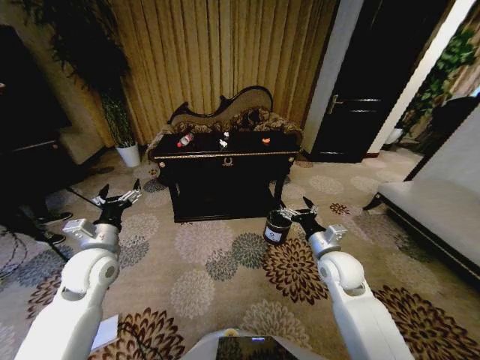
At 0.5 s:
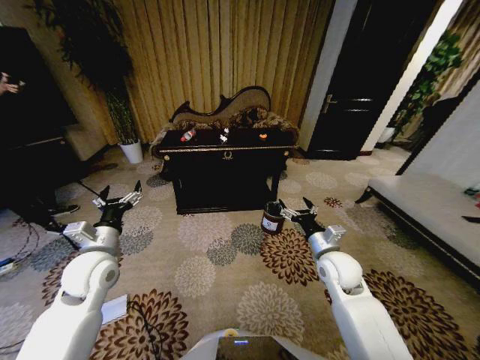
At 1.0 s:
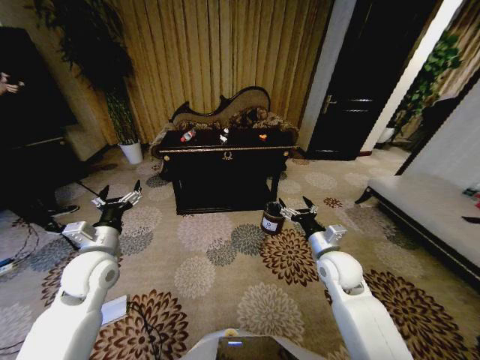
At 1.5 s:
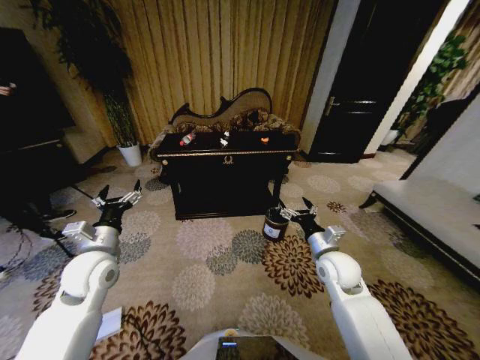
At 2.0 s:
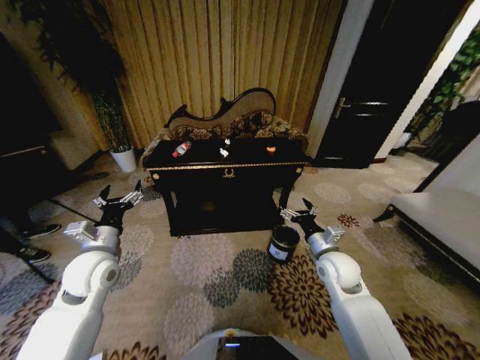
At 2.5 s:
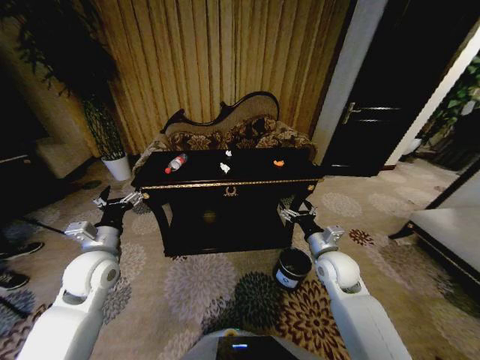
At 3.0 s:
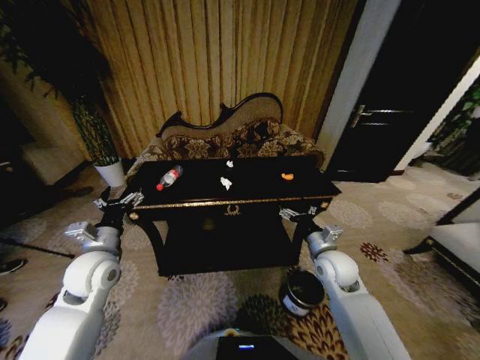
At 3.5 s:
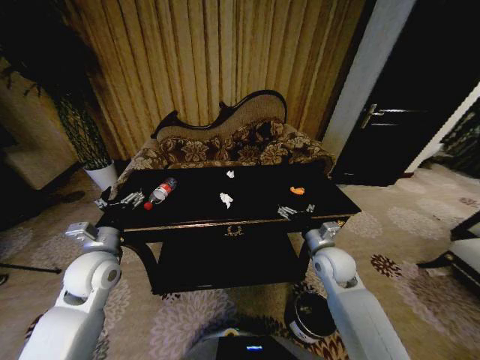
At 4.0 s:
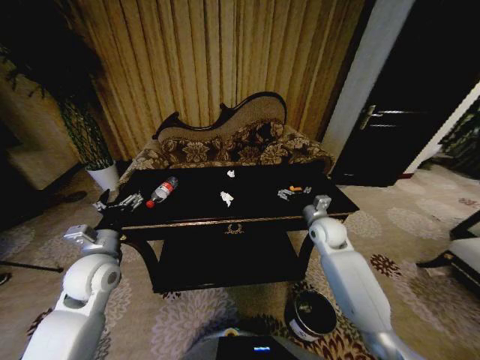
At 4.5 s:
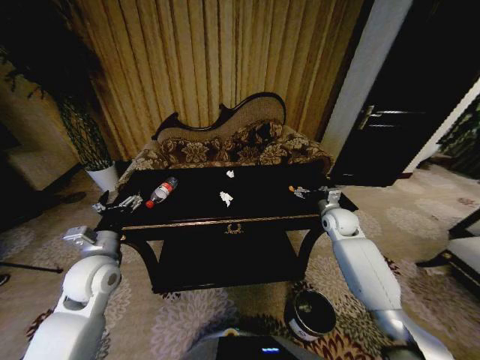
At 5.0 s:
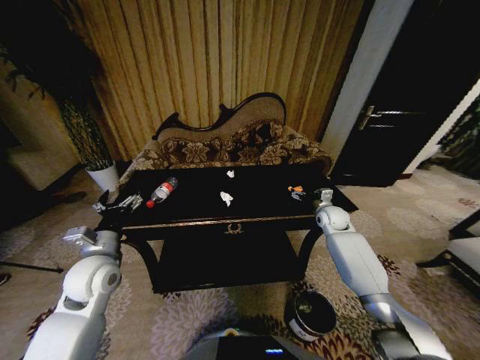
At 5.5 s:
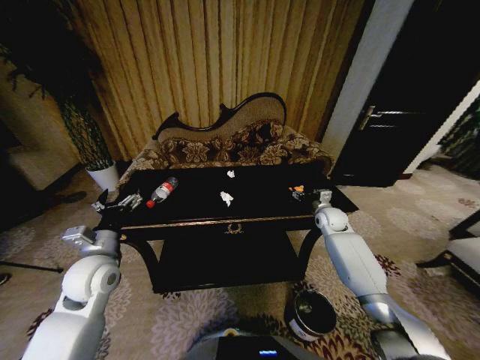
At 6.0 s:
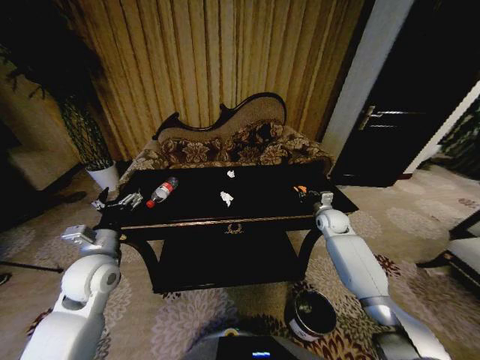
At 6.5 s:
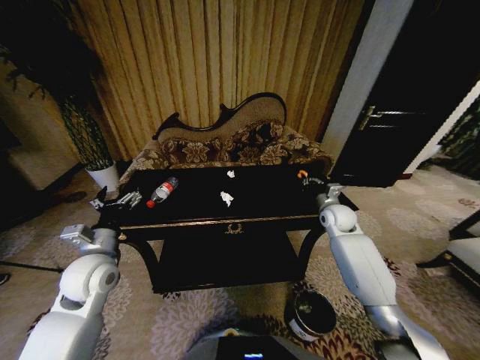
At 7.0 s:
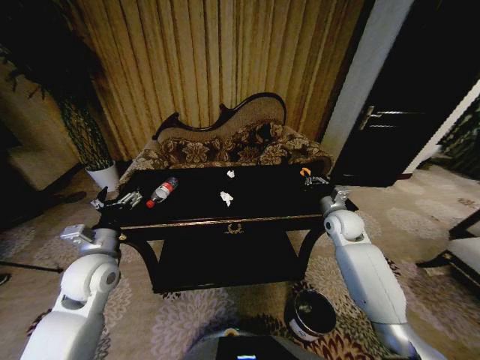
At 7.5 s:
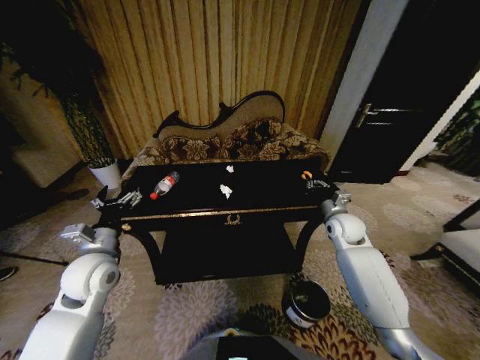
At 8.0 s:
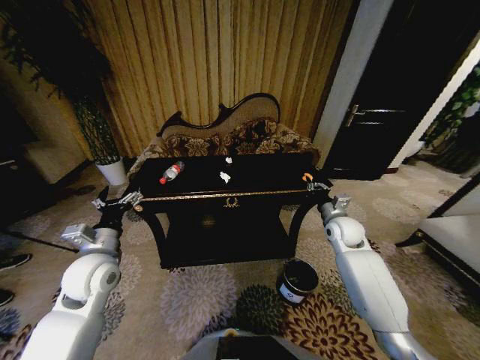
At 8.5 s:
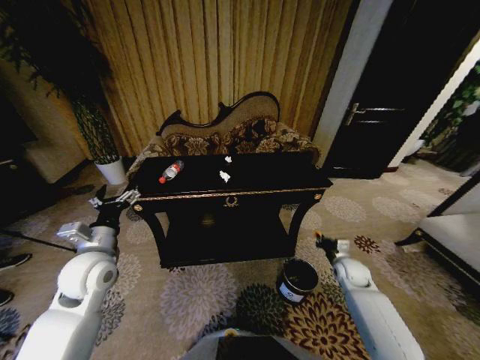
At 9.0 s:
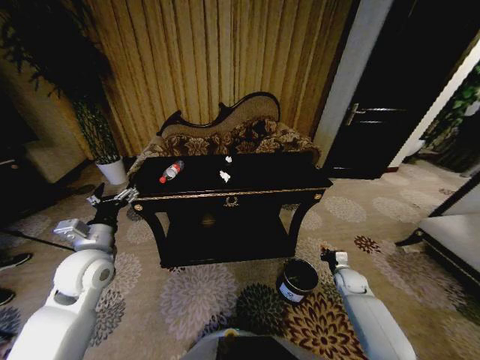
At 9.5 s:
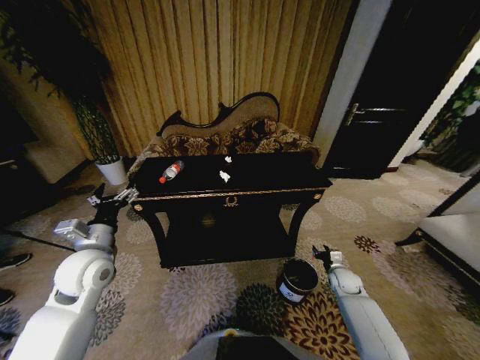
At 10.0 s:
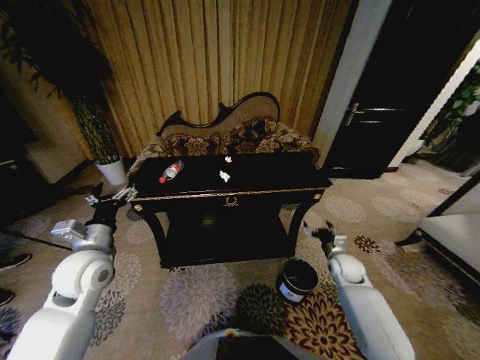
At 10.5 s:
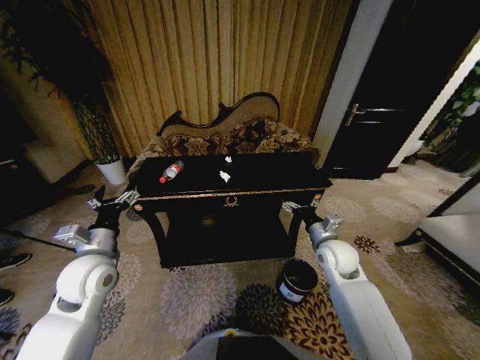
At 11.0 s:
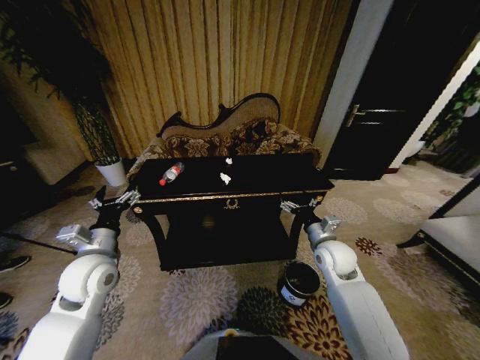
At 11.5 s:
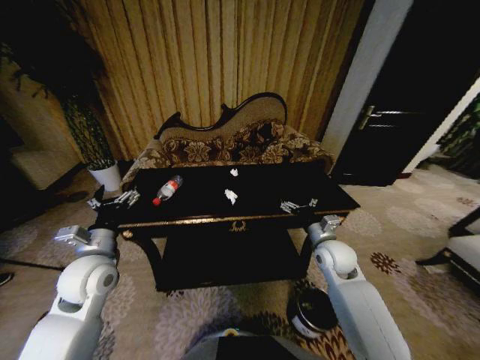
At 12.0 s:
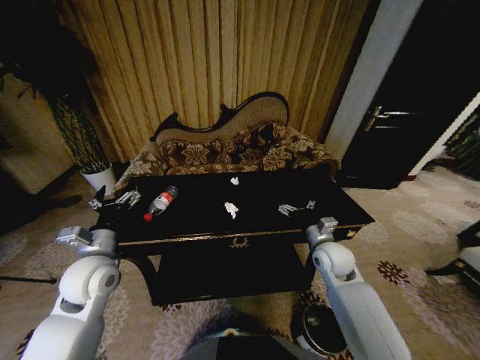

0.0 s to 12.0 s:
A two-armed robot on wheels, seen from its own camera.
Task of the whole recording: Move to the front of the table and place the trash on the table into the trash bin.
2.0 to 4.0 s: The right gripper heads forward, covering roughly 10 cm.
4.0 to 6.0 s: The right gripper shifts approximately 10 cm to the right and forward, and closes.
6.0 to 8.0 s: The right gripper is displaced backward by some 5 cm.
8.0 to 10.0 s: The right gripper is displaced downward and backward by roughly 15 cm, and opens.
10.0 to 12.0 s: The right gripper is displaced upward and to the left by some 15 cm.

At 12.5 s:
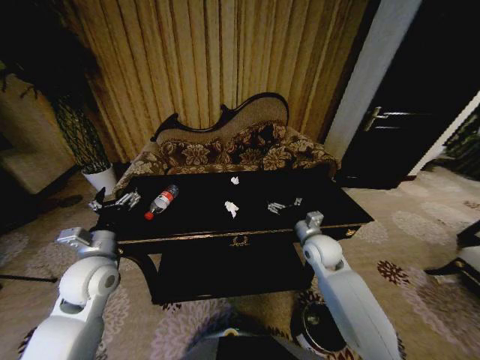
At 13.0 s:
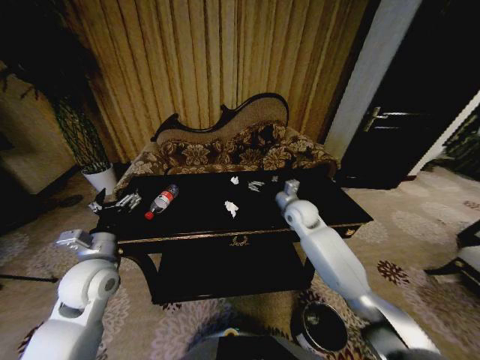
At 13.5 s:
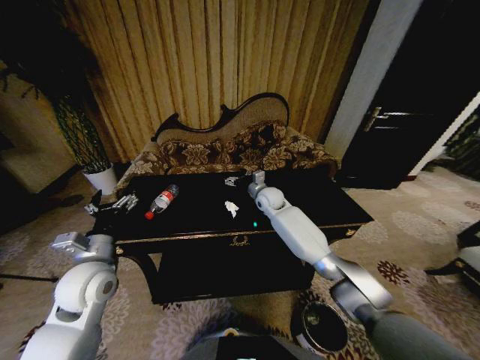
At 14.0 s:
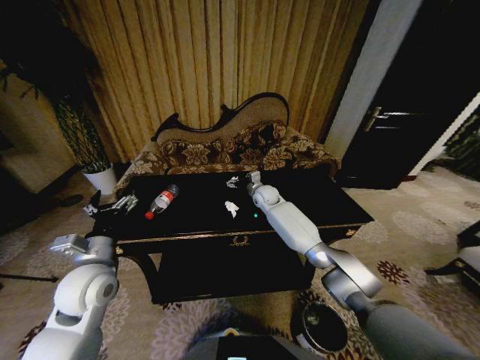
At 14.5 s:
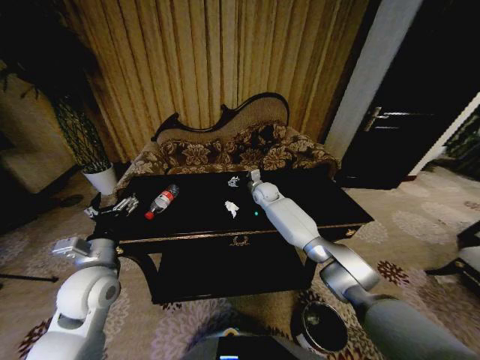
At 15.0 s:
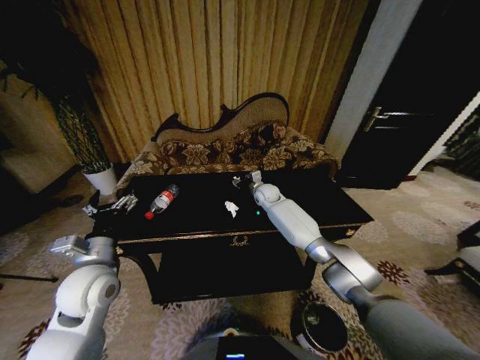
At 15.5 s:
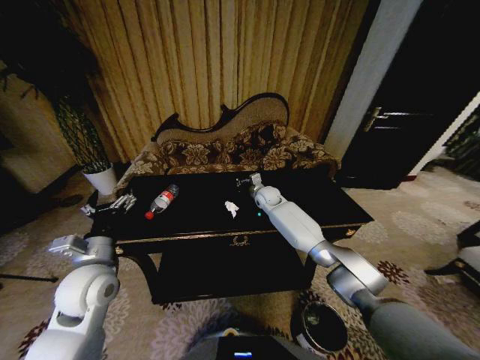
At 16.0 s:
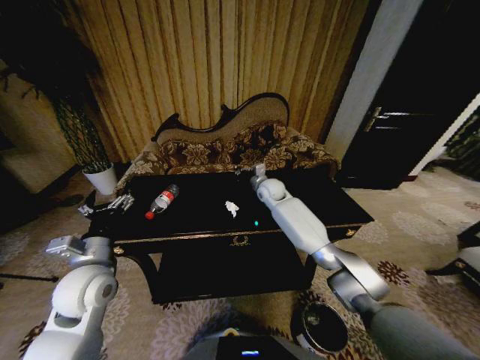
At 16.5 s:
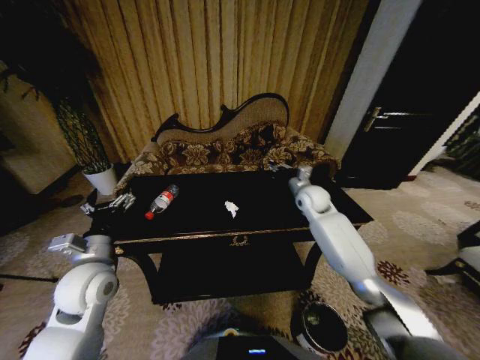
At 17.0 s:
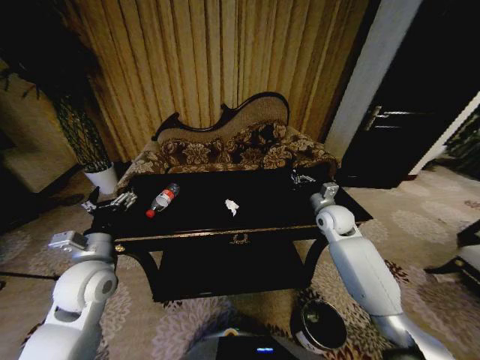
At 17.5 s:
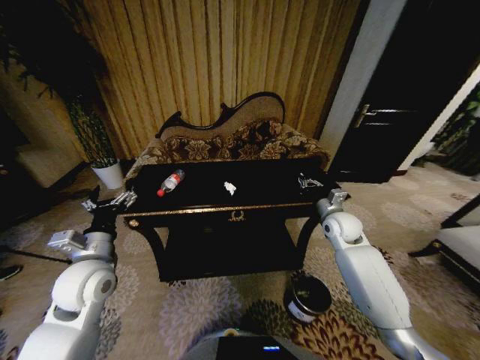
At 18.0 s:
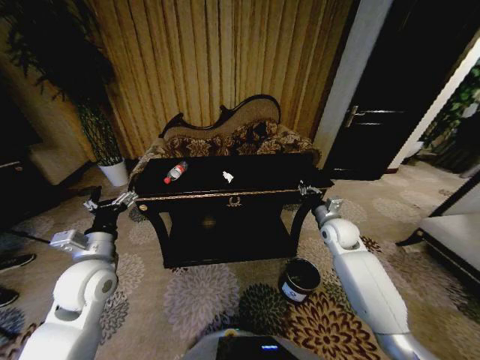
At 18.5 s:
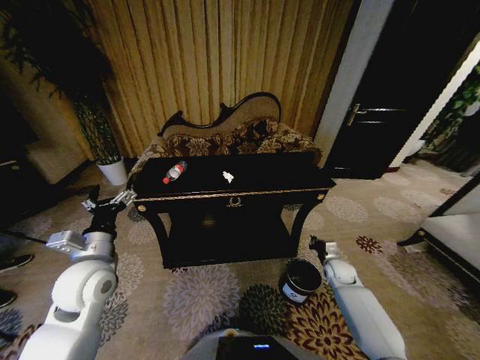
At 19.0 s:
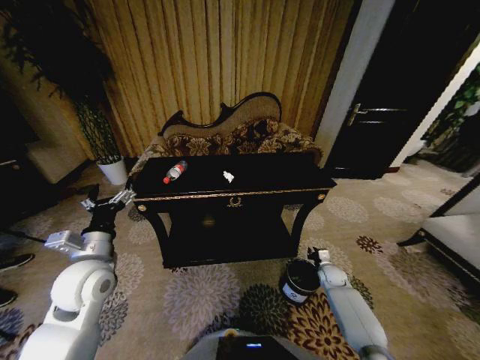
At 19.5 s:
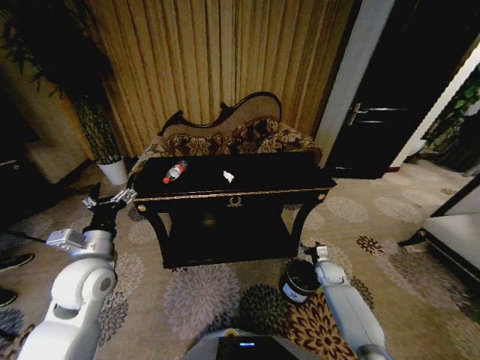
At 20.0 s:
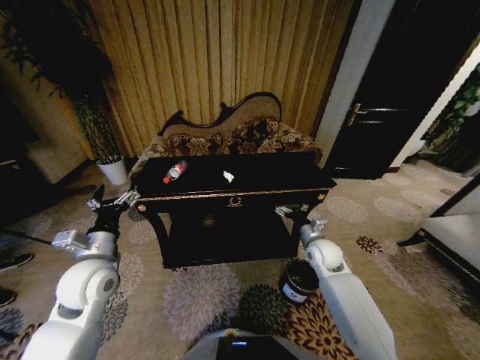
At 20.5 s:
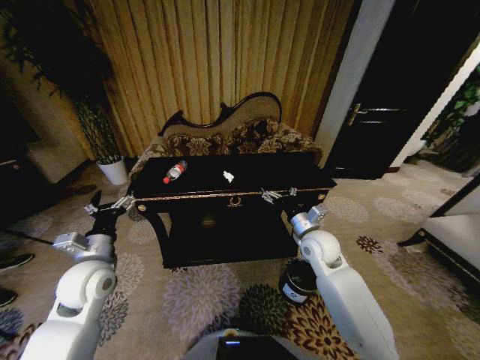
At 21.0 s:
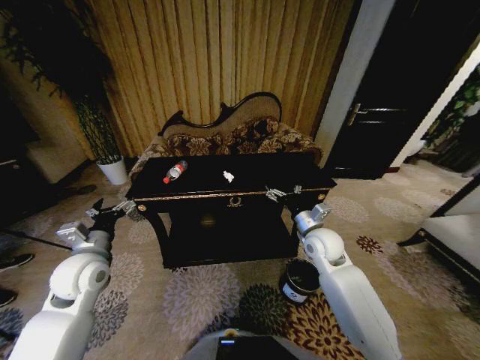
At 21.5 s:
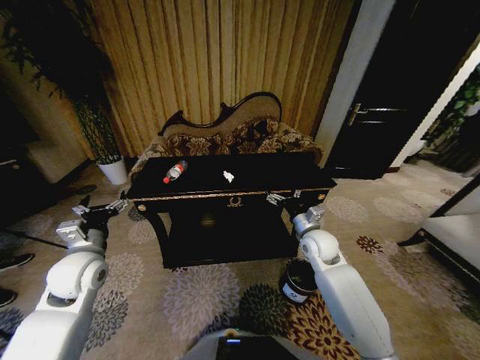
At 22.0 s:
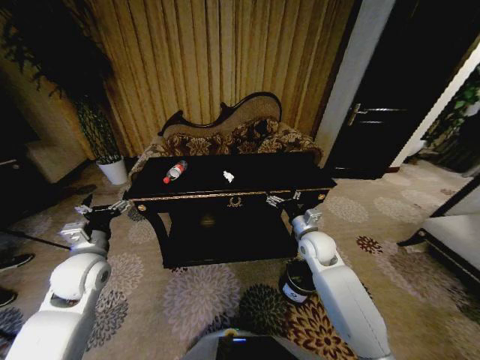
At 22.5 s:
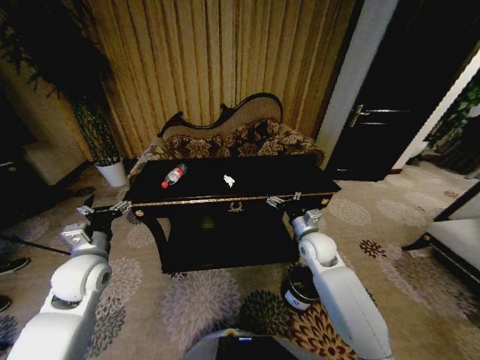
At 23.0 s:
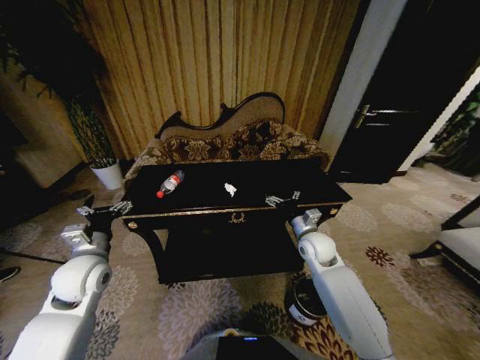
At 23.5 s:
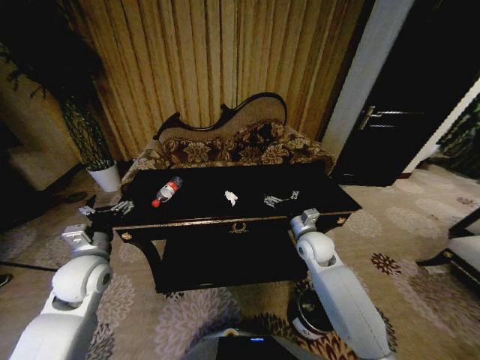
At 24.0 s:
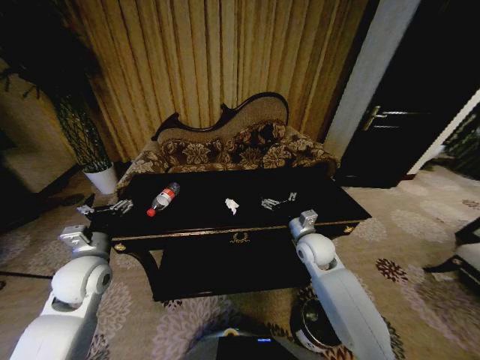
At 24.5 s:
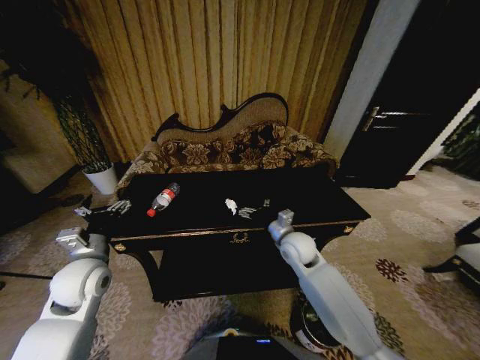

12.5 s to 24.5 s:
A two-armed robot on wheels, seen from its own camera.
Task of the whole recording: Move to the front of the table and place the trash on the table into the trash bin.
12.5 to 14.5 s: The right gripper moves forward and to the left, approximately 25 cm.
14.5 to 16.5 s: The right gripper moves to the right and backward, roughly 15 cm, and closes up.
16.5 to 18.5 s: The right gripper shifts roughly 30 cm downward, backward and to the right.
18.5 to 20.5 s: The right gripper heads upward and to the left, covering approximately 25 cm, and opens up.
20.5 to 22.5 s: The grippers make only small movements.
22.5 to 24.5 s: The right gripper moves to the left, roughly 5 cm.

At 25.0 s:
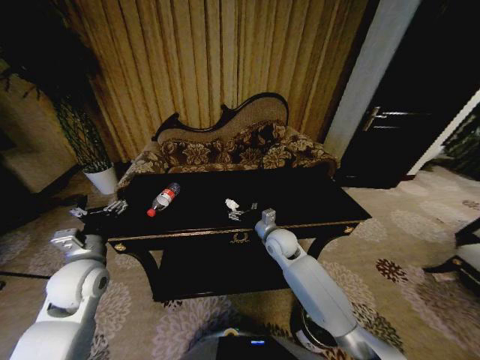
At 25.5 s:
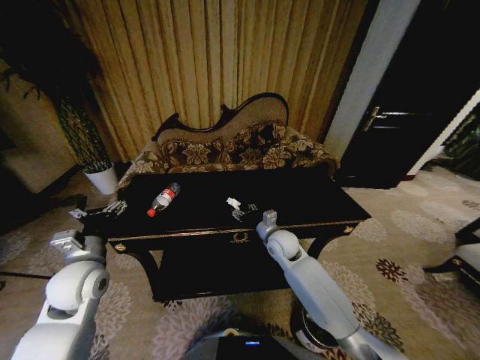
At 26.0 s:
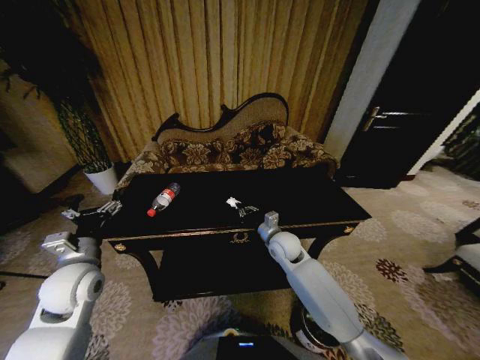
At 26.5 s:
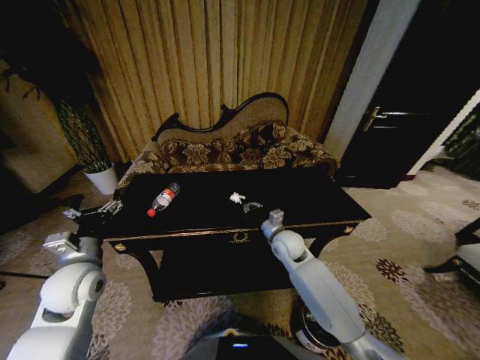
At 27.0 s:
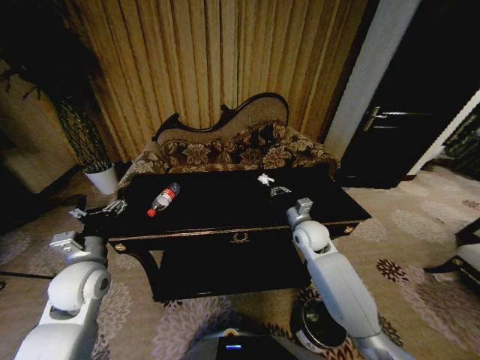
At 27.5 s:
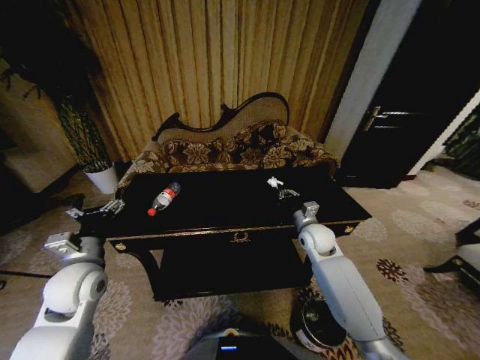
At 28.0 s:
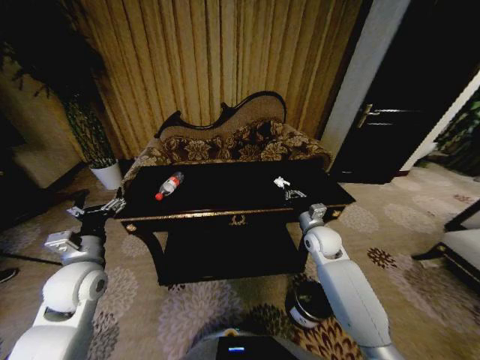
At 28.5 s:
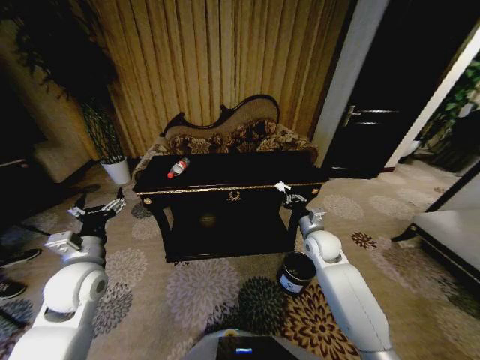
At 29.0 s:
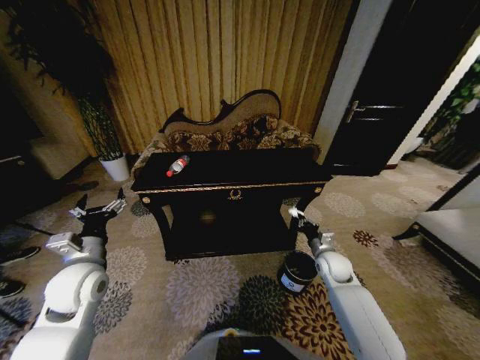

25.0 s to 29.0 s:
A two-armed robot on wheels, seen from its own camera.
Task of the whole recording: Move to the front of the table and place the trash on the table into the trash bin.
25.0 to 27.0 s: The right gripper is displaced to the right by some 10 cm, and closes.
27.0 to 29.0 s: The right gripper travels downward, to the right and backward by roughly 15 cm.
